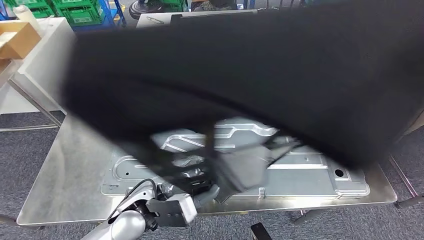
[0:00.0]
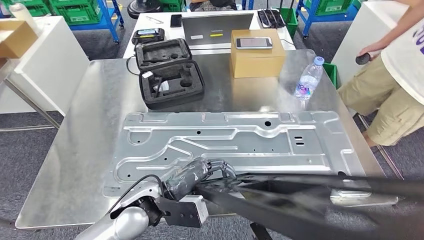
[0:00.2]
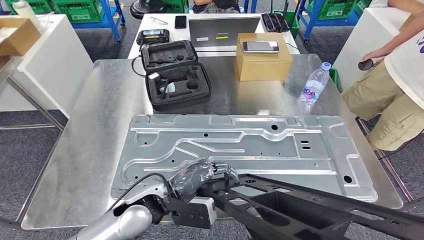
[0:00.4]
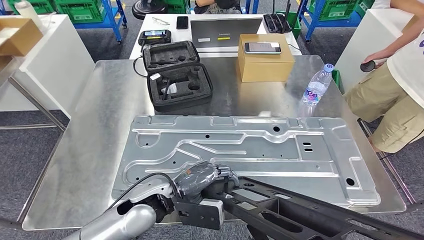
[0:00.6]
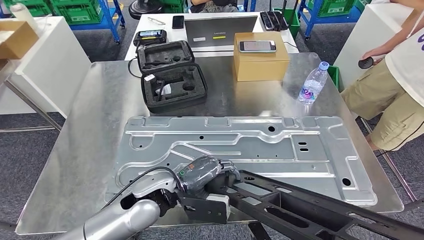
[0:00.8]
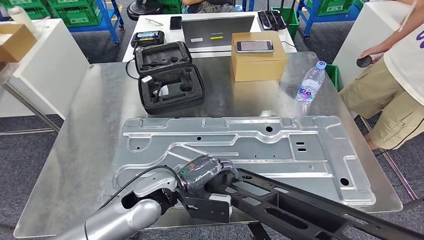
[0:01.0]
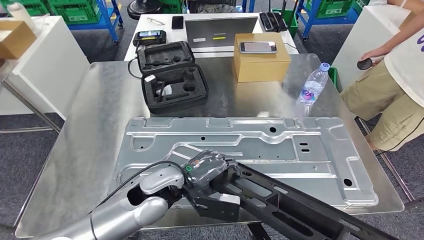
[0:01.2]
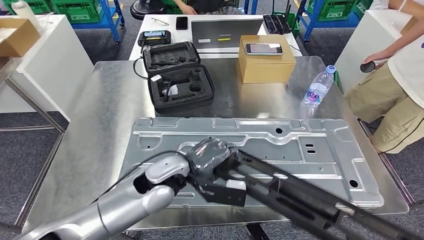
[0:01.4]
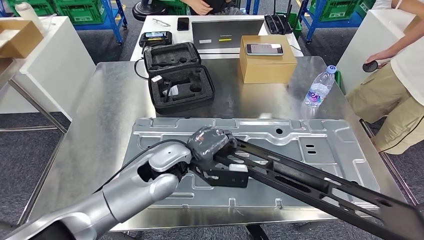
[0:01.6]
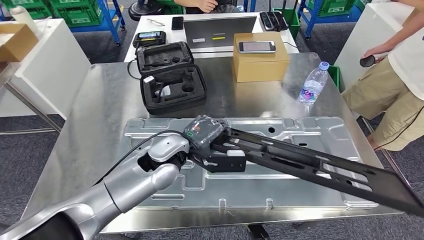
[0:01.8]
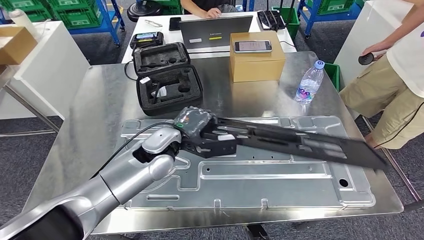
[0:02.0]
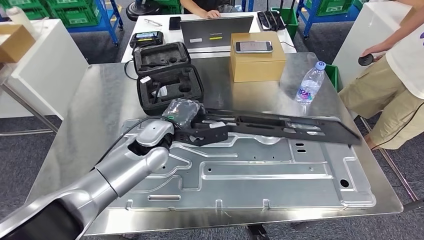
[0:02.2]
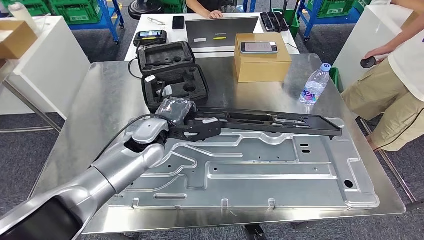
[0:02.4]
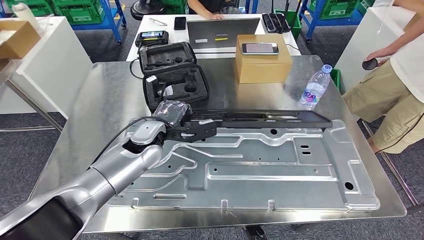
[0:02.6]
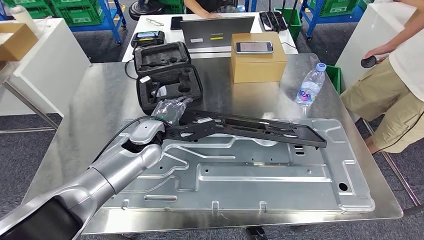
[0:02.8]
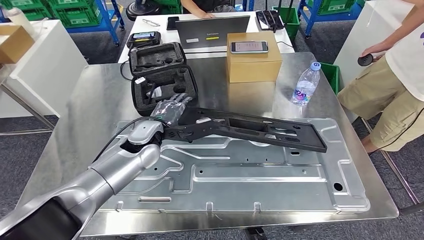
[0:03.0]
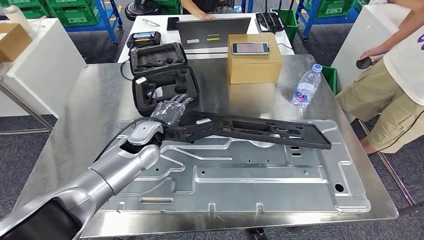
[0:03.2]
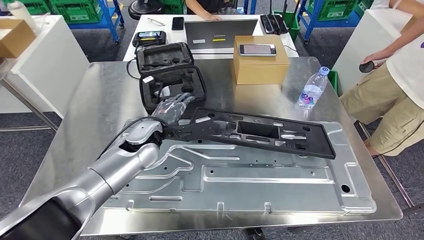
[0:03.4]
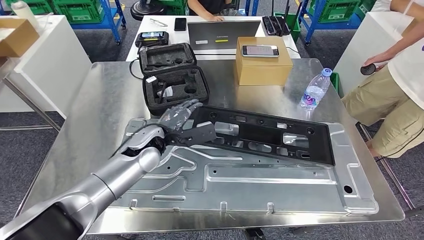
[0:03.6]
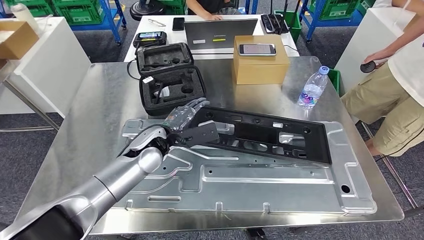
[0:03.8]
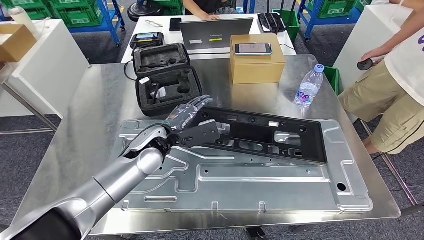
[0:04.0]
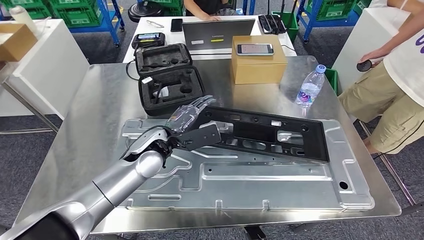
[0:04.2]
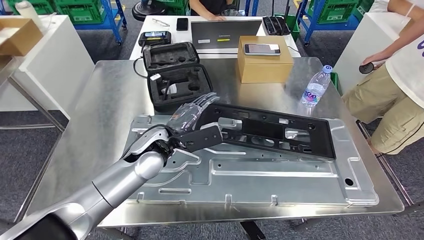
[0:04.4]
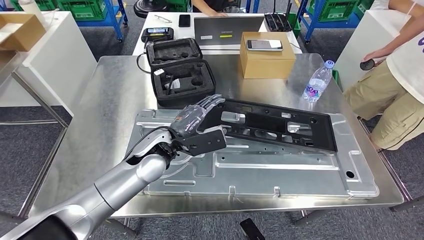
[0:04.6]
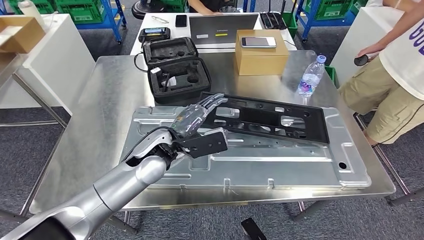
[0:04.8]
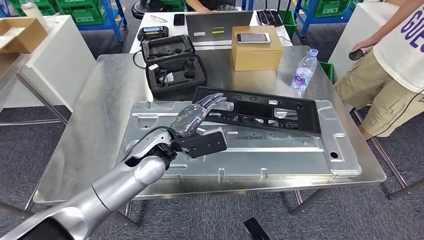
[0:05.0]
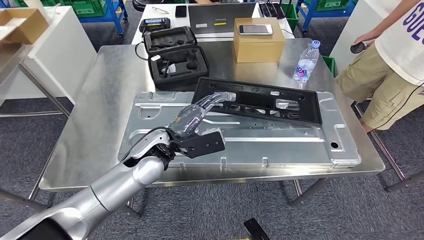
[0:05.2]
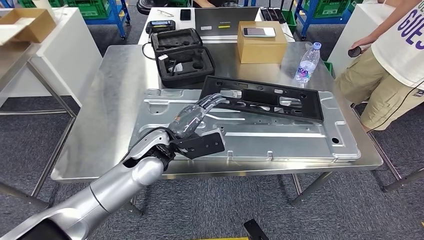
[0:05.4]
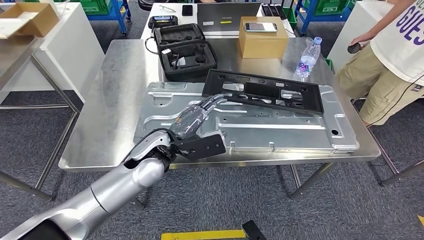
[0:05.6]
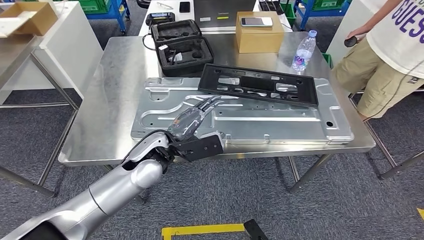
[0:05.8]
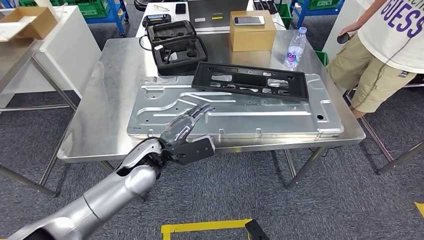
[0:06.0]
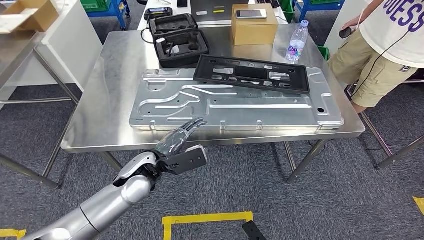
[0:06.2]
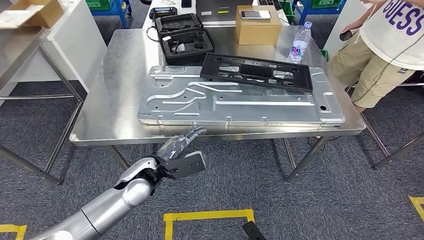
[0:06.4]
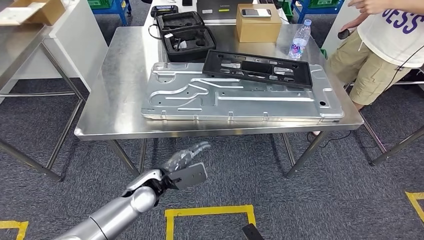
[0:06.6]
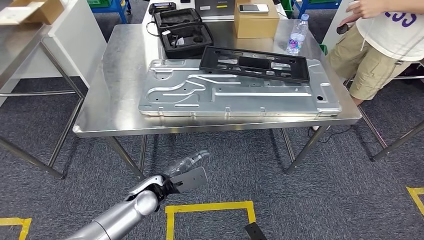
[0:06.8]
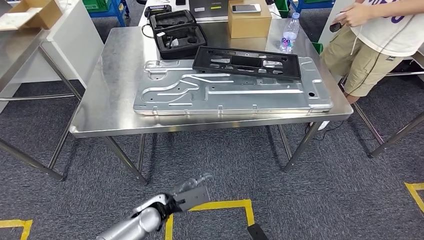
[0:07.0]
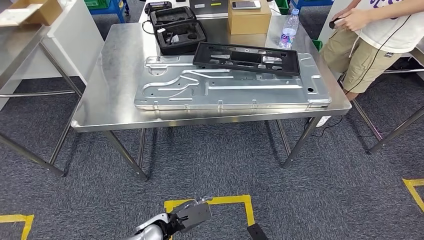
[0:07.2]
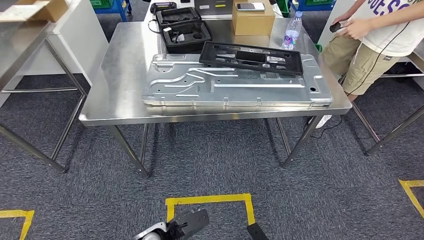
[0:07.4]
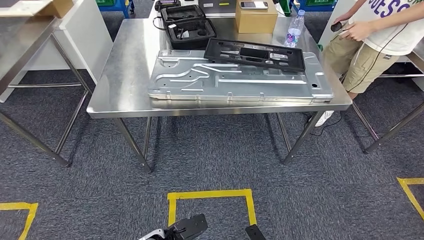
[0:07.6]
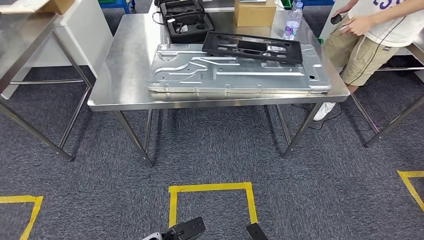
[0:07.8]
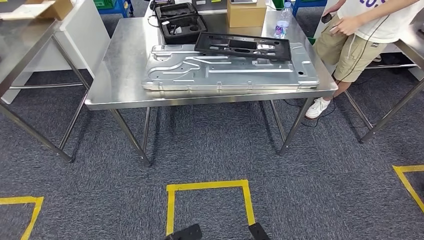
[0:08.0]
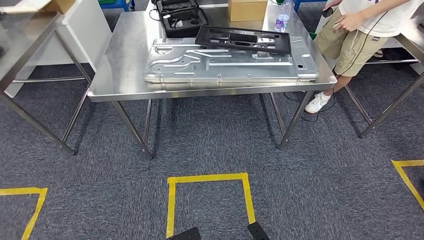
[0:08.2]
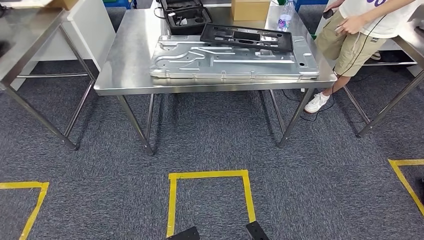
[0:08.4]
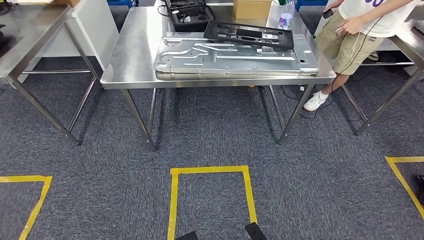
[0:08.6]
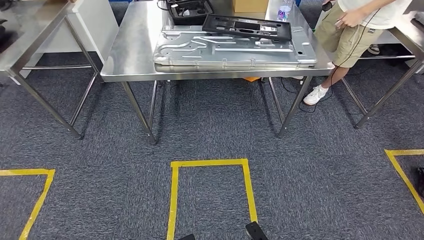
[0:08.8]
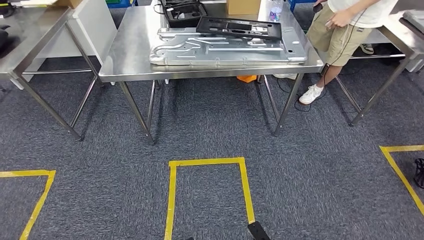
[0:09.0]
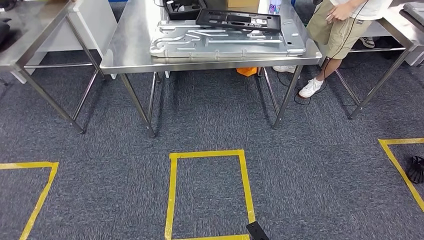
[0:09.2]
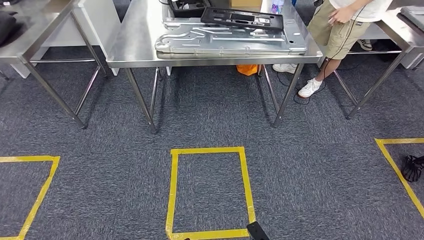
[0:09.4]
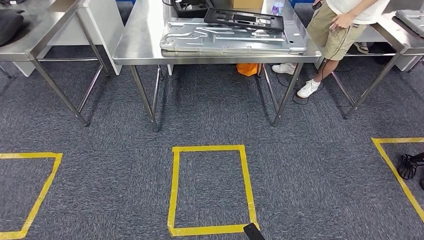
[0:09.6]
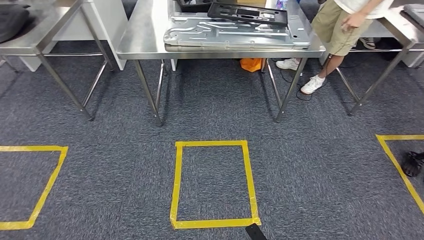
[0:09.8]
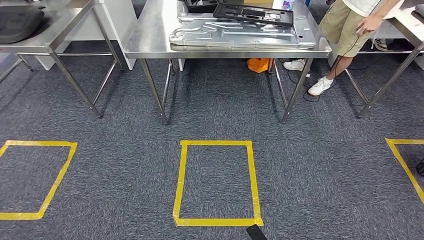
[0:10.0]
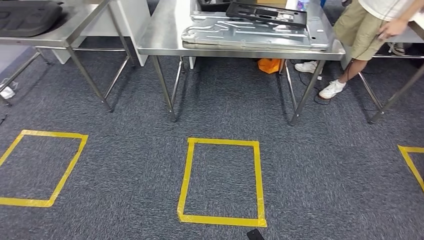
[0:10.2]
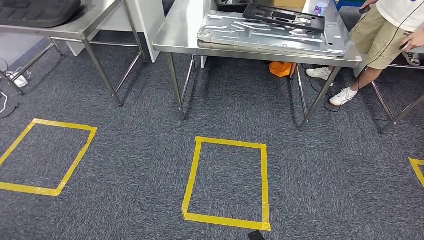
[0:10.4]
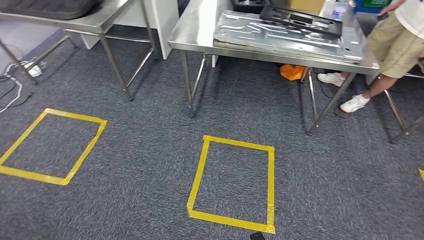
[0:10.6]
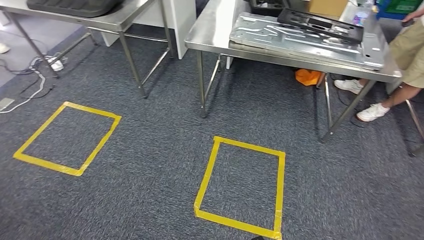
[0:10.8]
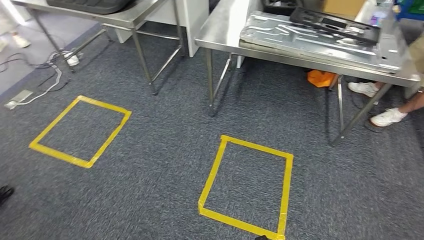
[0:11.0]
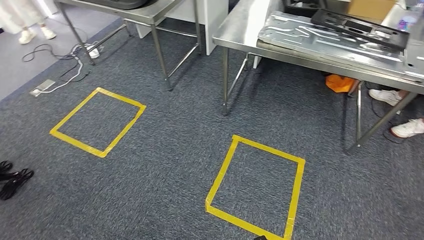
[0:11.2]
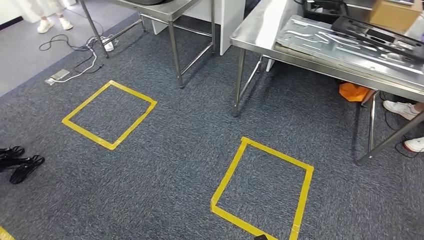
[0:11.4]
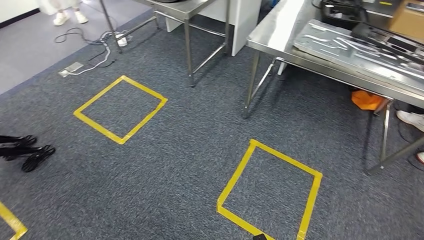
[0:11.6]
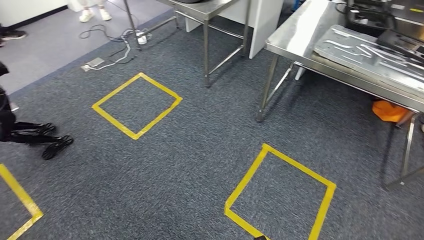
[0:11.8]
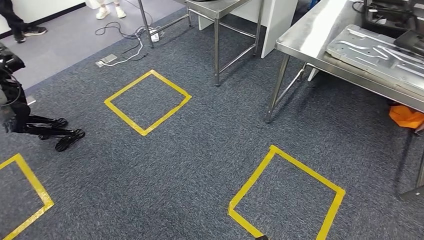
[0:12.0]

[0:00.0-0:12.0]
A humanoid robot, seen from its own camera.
Step, 0:00.0 to 0:07.8: Insert the large material into the corresponding slot on the workbench.

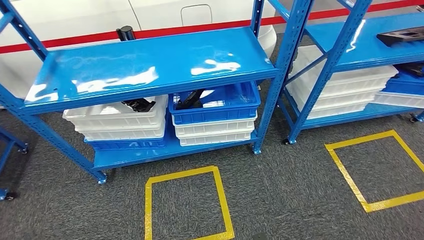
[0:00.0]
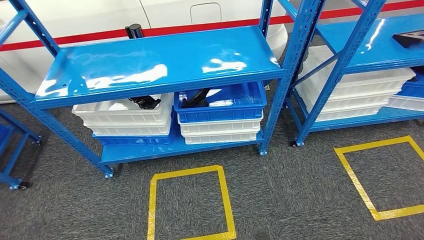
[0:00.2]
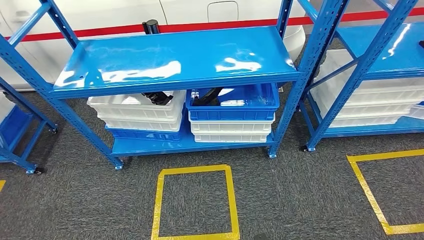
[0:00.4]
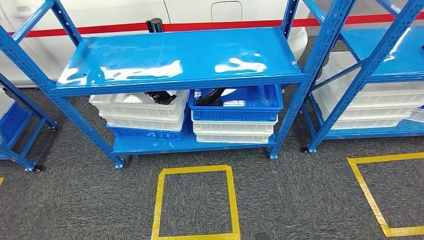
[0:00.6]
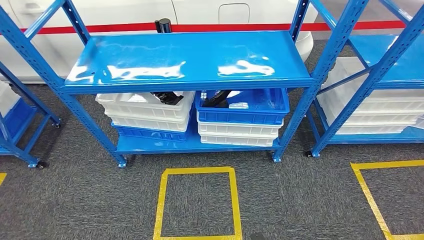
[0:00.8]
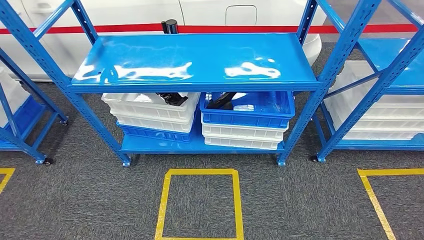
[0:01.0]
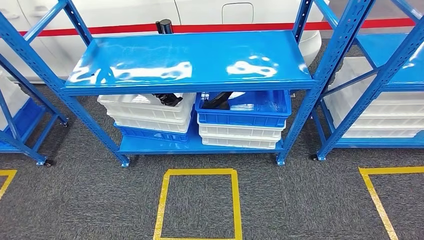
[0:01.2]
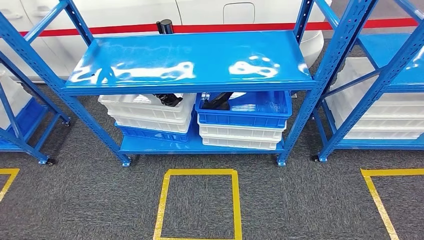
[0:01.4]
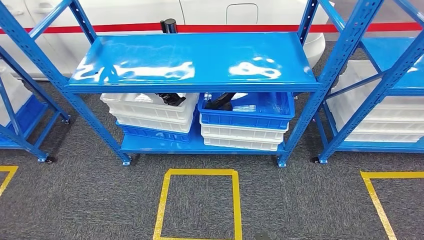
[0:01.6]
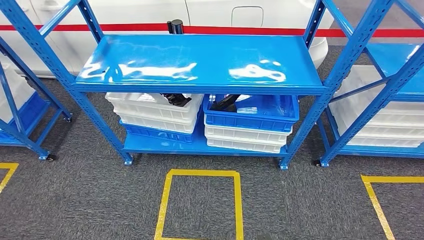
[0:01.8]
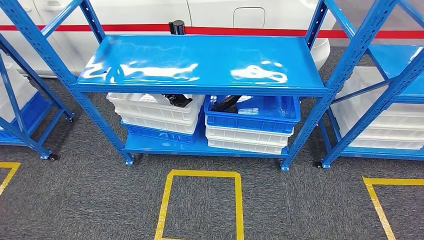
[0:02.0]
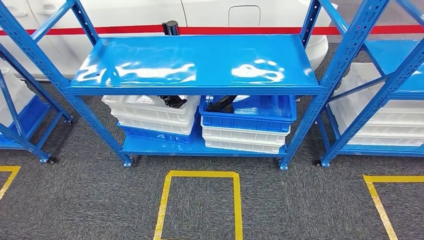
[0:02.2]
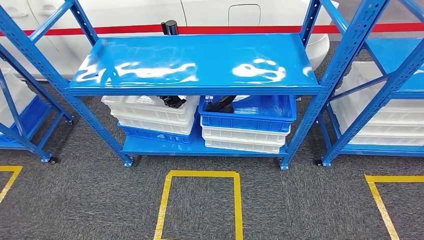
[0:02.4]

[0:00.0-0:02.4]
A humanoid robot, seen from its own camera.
Step, 0:00.0 to 0:02.4: Return to the initial position at the shelf.
